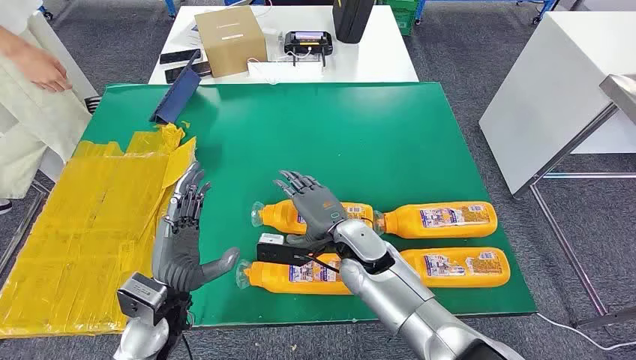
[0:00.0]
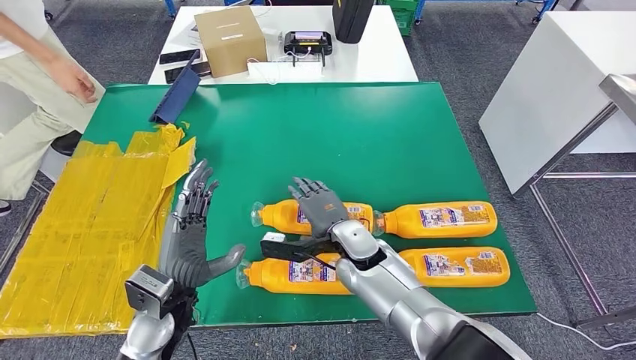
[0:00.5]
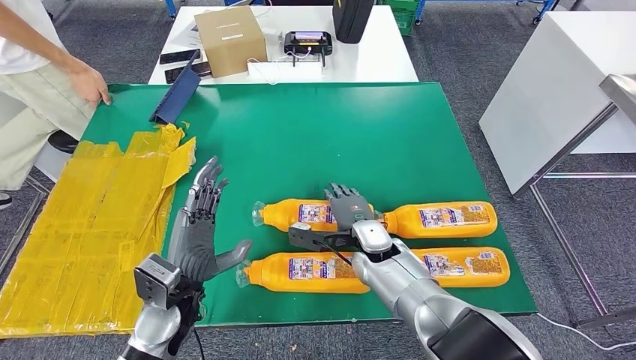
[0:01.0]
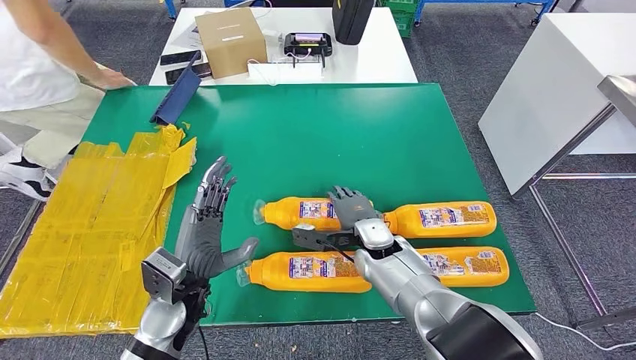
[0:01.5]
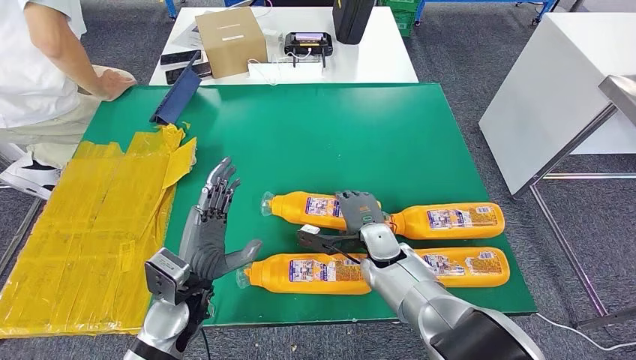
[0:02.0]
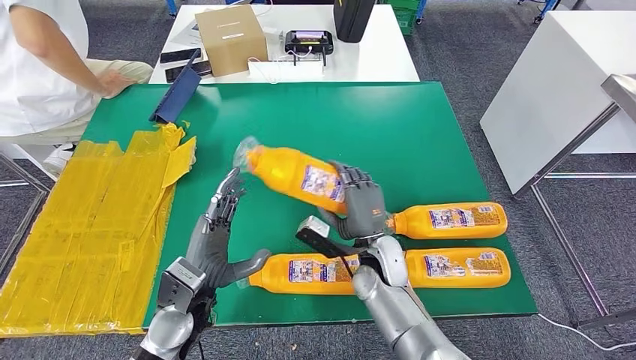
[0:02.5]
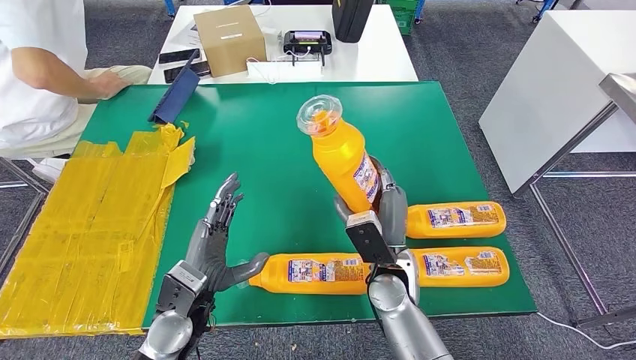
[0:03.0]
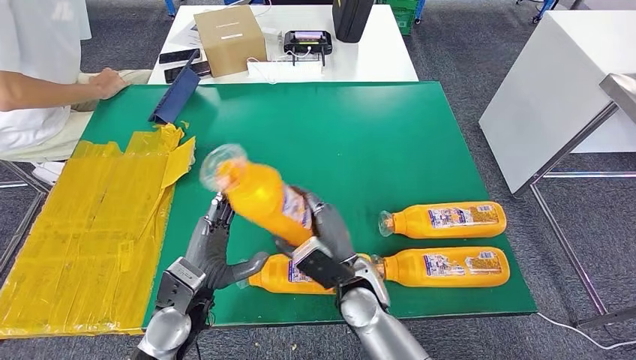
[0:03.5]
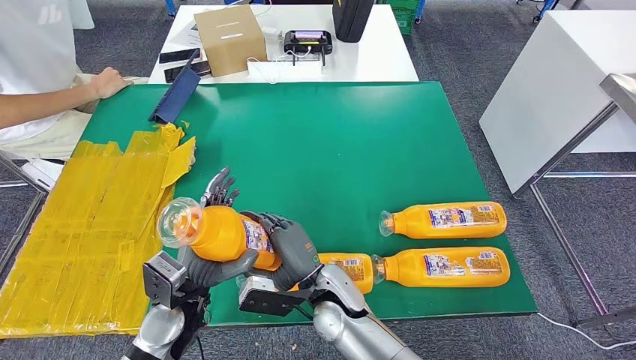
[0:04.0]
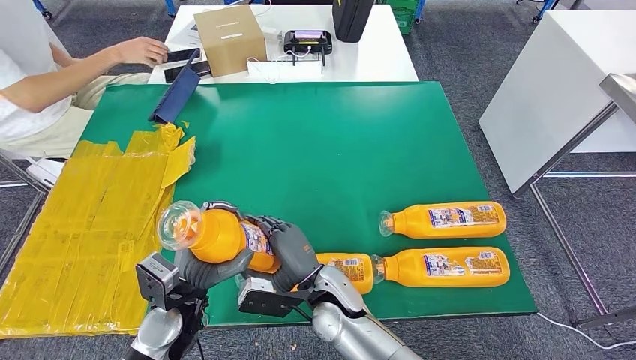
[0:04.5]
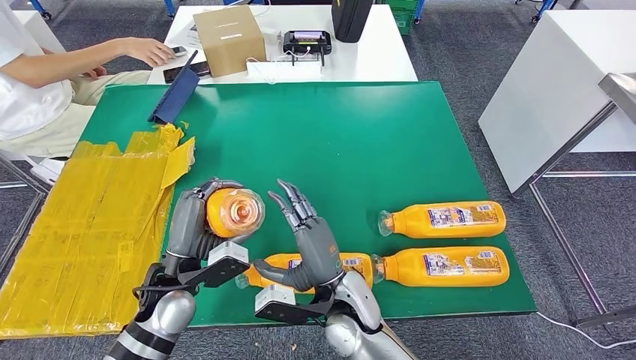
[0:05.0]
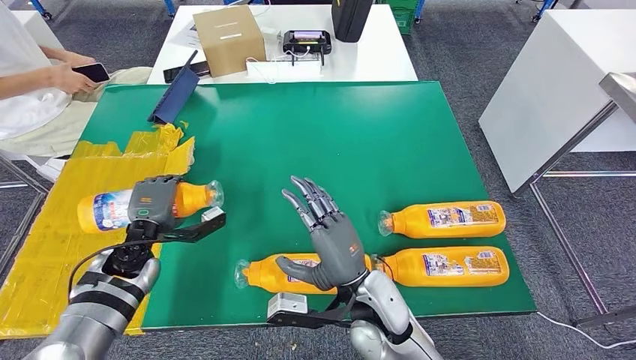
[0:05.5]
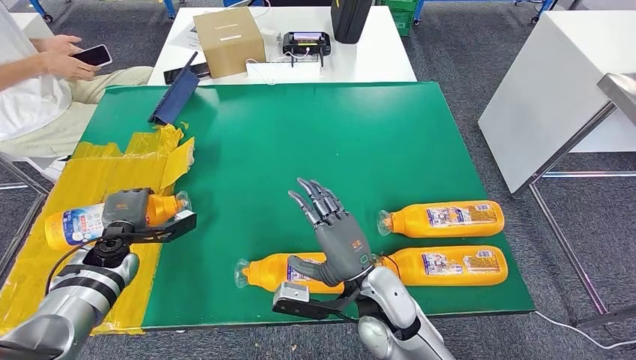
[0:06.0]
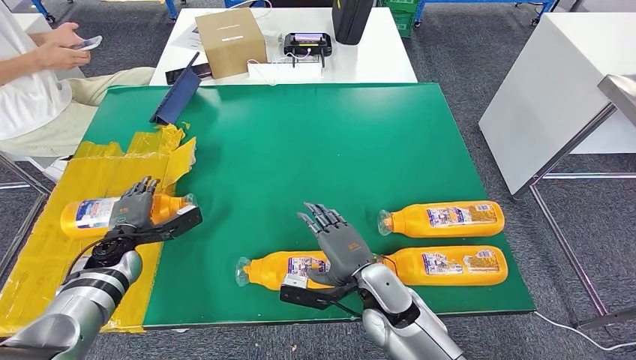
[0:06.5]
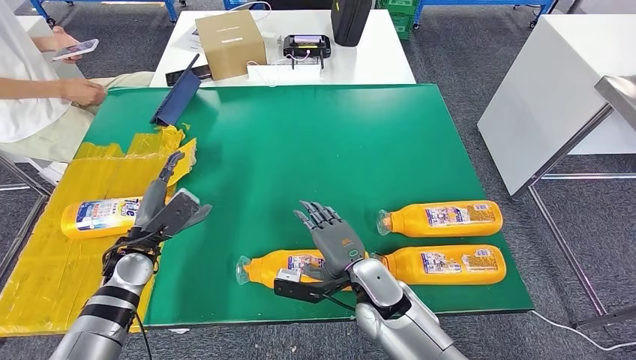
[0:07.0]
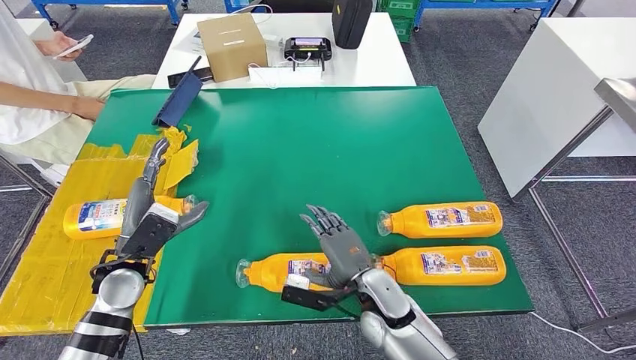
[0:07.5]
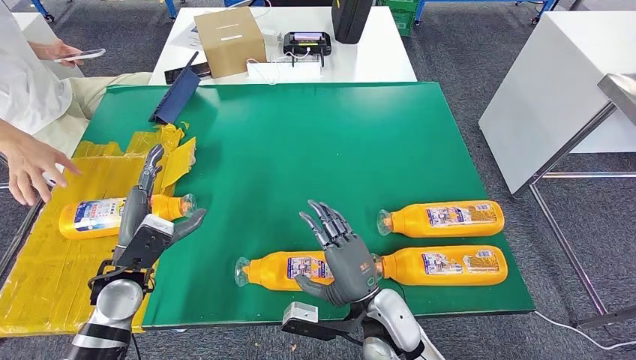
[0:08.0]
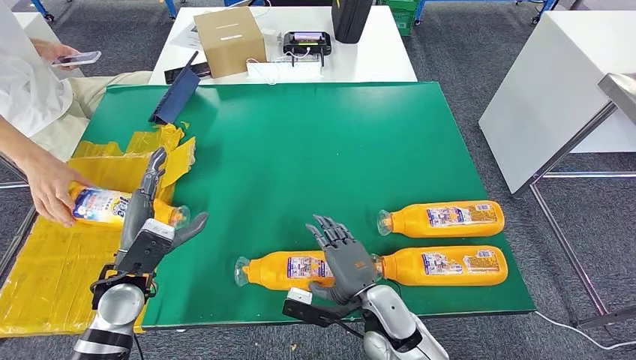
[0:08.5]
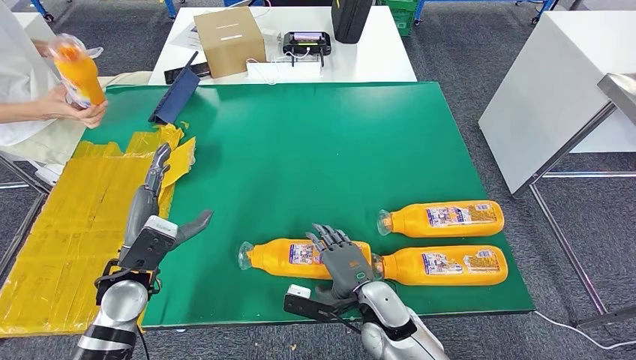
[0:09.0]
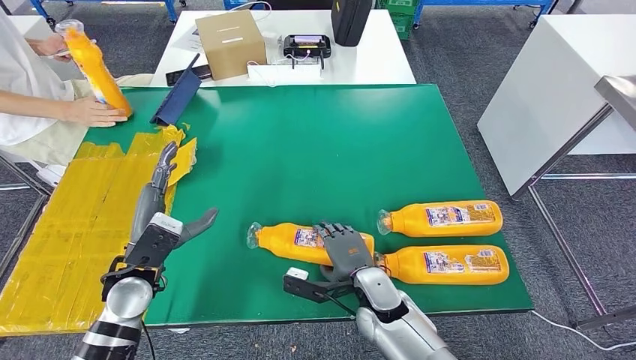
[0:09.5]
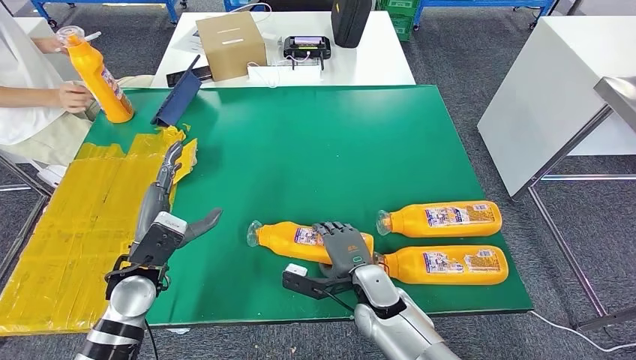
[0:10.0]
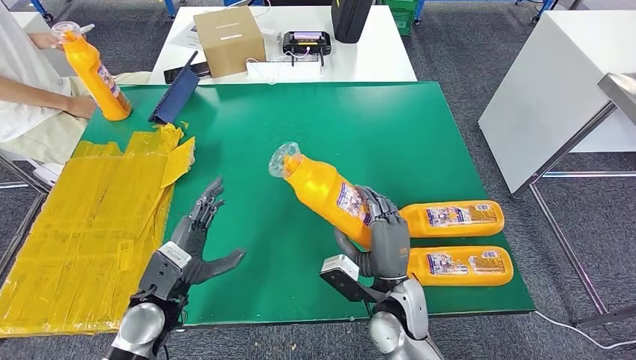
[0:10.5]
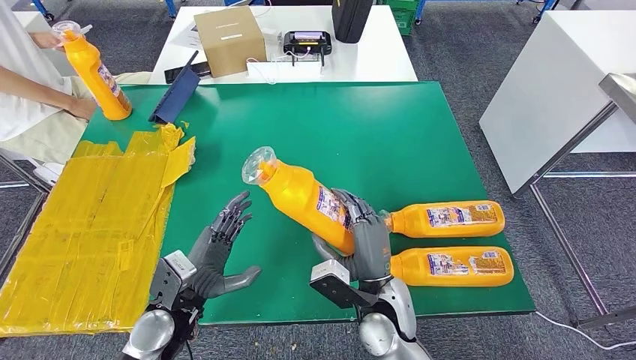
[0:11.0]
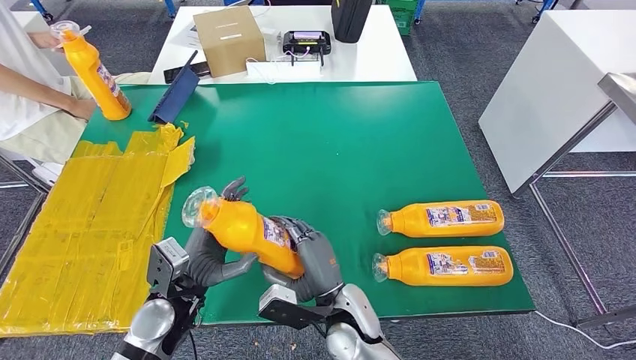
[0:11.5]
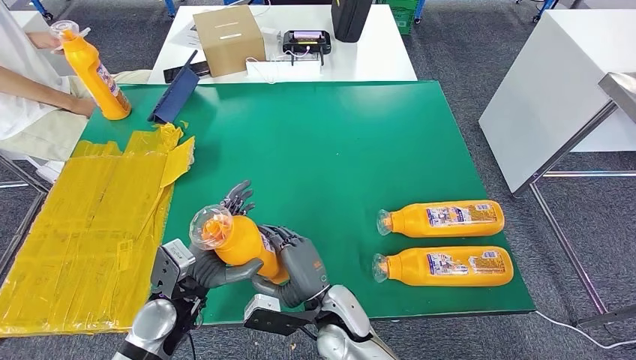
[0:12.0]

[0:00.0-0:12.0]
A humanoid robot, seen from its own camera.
Step, 0:00.0 to 0:03.0: Take the fast-moving consumer goods bottle from the table.
Step, 0:03.5 to 0:07.0: Flip the fast-moving consumer goods bottle to the front side.
Step, 0:07.5 to 0:10.5: Pick up the fast-moving consumer goods bottle from the table.
0:06.0 to 0:08.0: The left hand travels backward, to the right and upward by about 15 cm.

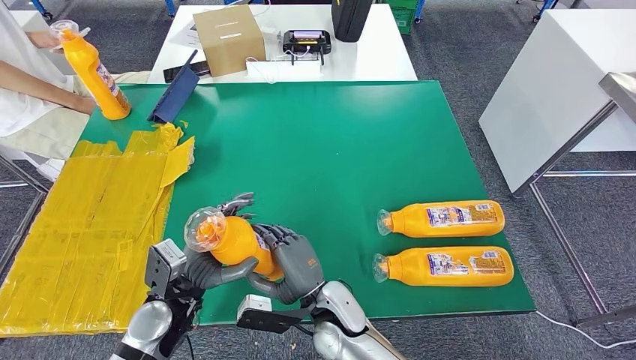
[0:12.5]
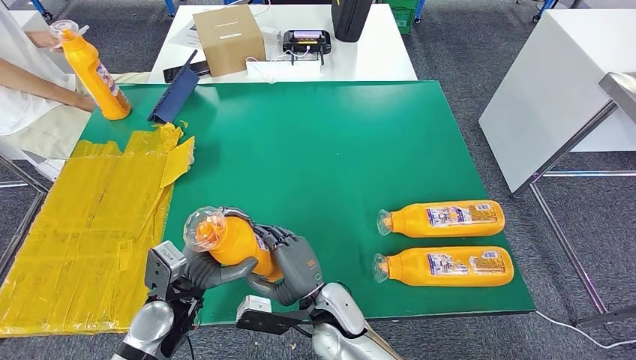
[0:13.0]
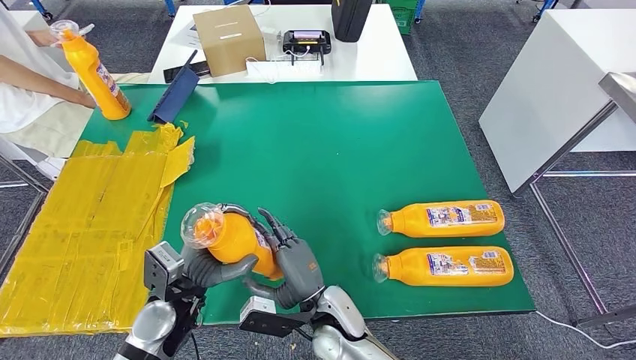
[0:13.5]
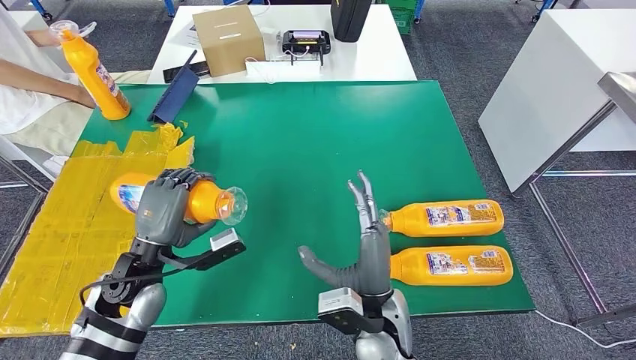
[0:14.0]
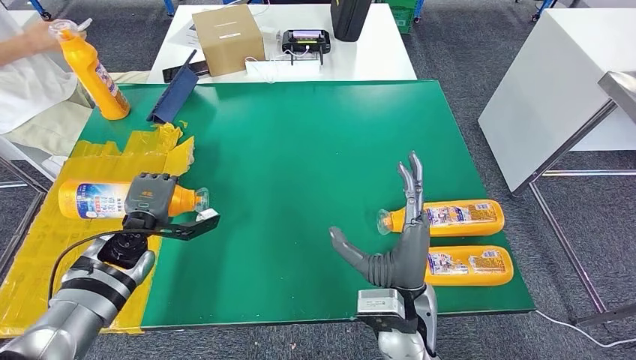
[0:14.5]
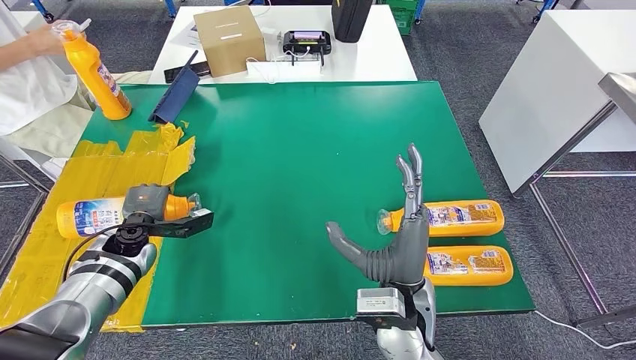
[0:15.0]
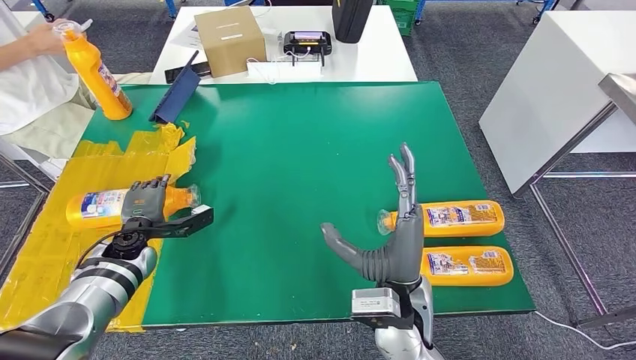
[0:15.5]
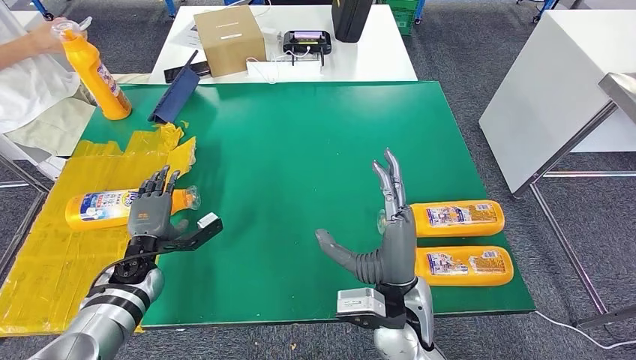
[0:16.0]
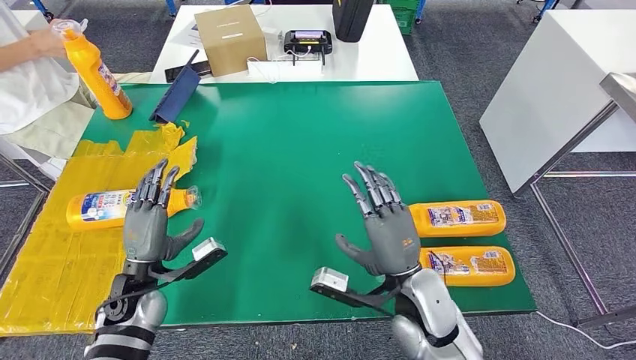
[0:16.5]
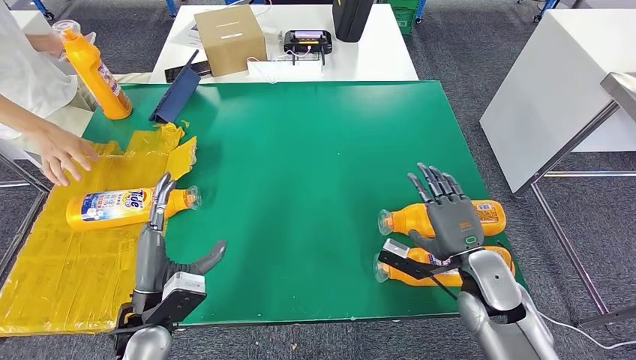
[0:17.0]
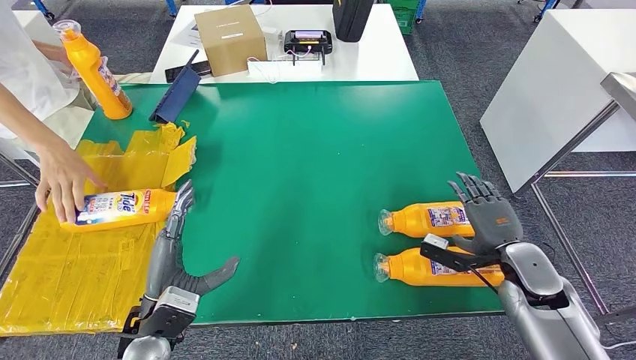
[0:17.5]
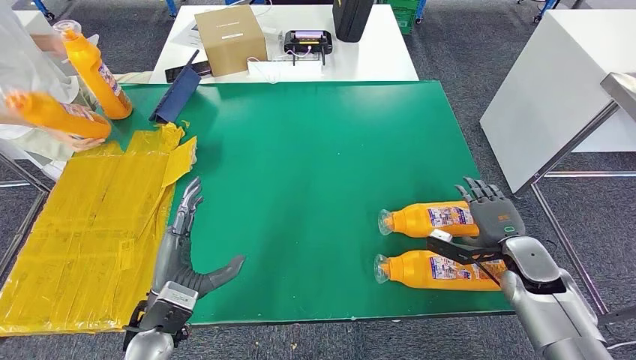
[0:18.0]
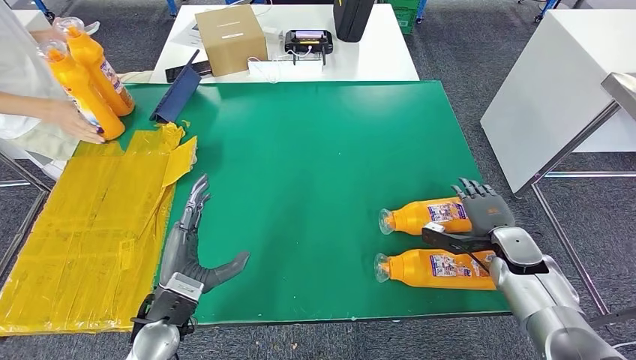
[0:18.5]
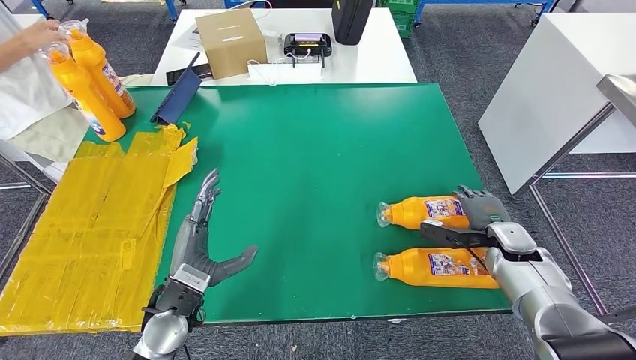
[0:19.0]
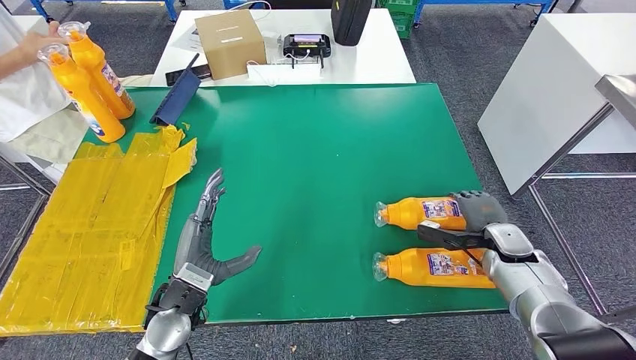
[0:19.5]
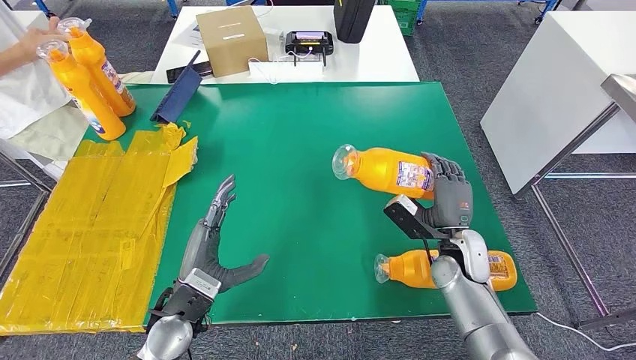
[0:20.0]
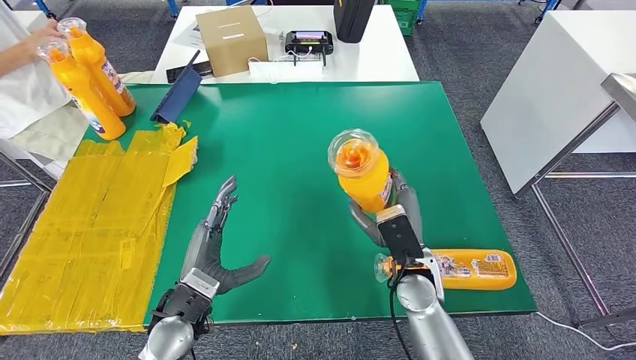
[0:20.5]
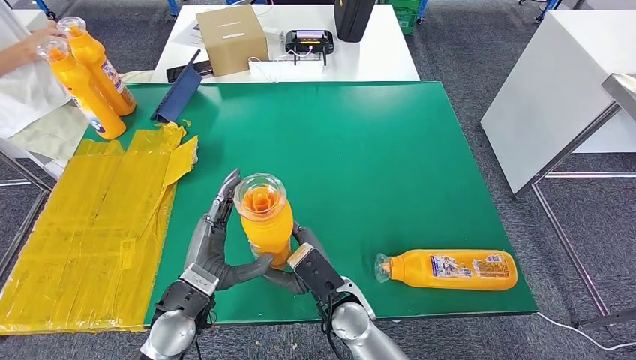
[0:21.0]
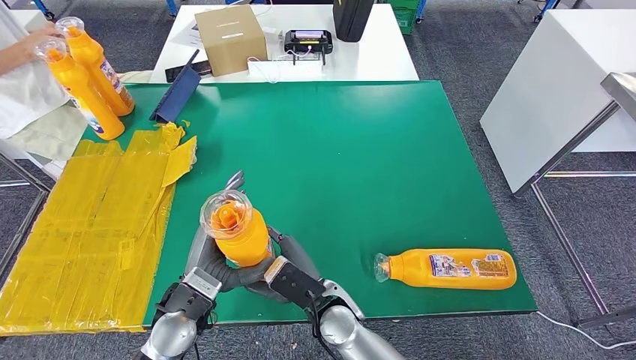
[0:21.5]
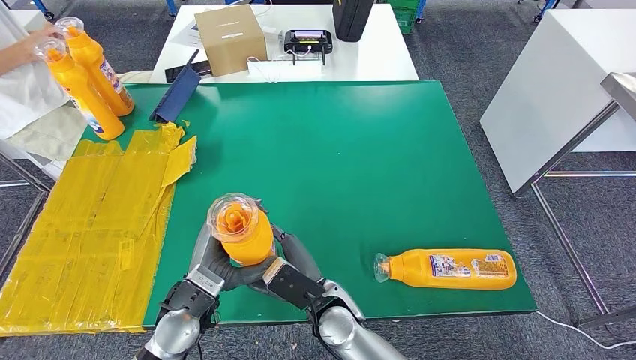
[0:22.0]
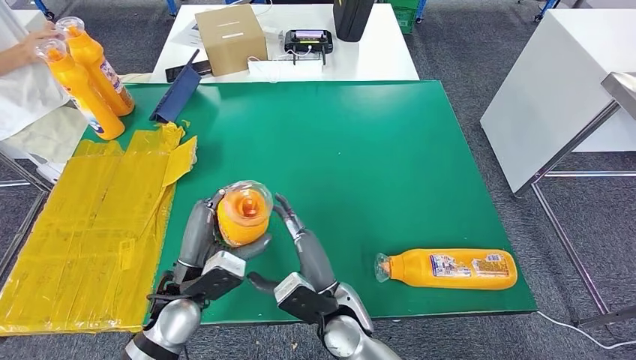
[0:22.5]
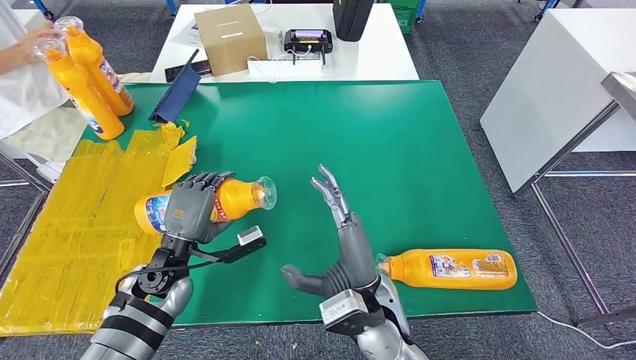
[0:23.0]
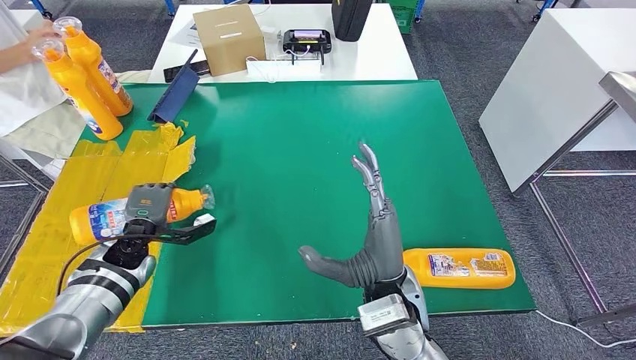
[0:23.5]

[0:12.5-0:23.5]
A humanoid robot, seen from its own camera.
Step, 0:12.5 to 0:14.5: Flip the fast-moving consumer goods bottle to the front side.
Step, 0:16.0 to 0:20.5: Pick up the fast-moving consumer goods bottle from the table.
0:14.5 to 0:16.0: The left hand heads downward, covering roughly 5 cm.
0:18.0 to 0:20.0: The right hand travels to the left by some 10 cm.
0:20.0 to 0:21.5: The right hand moves to the left, approximately 25 cm.
0:21.5 to 0:23.5: The right hand moves upward and to the right, roughly 15 cm, while the left hand shifts about 20 cm to the left and forward.
